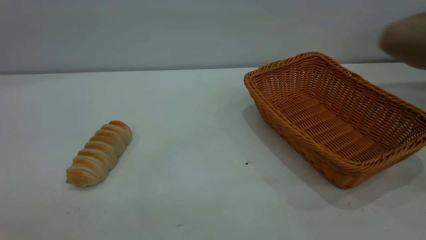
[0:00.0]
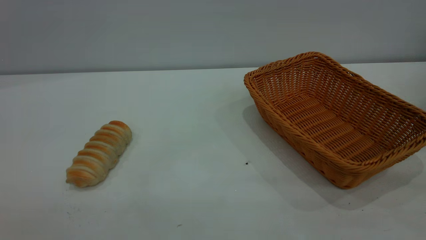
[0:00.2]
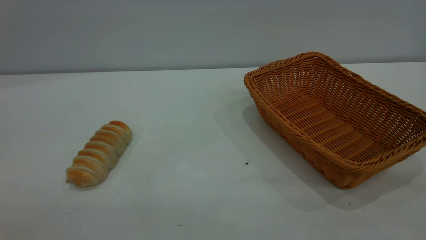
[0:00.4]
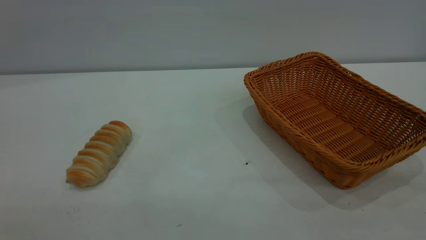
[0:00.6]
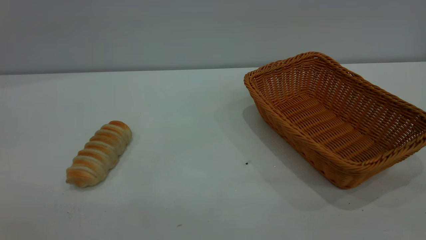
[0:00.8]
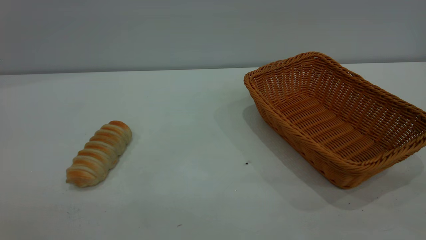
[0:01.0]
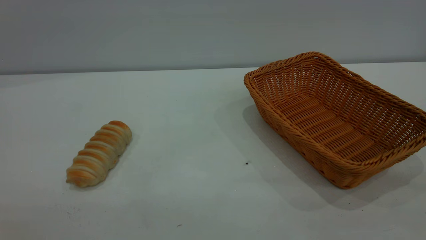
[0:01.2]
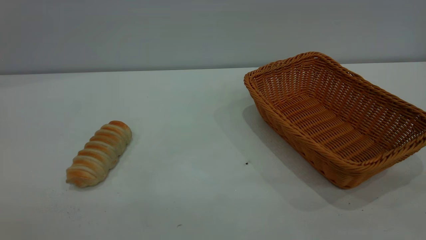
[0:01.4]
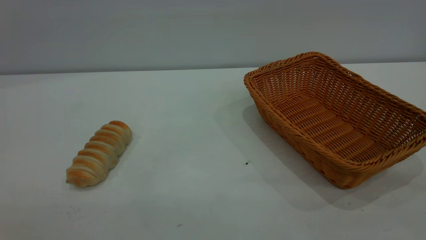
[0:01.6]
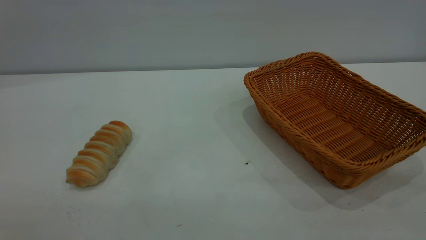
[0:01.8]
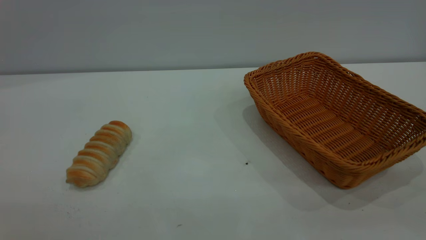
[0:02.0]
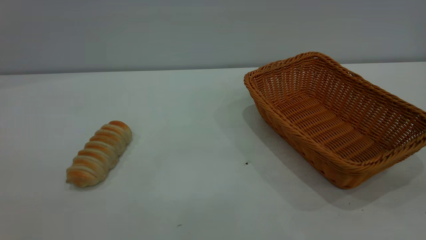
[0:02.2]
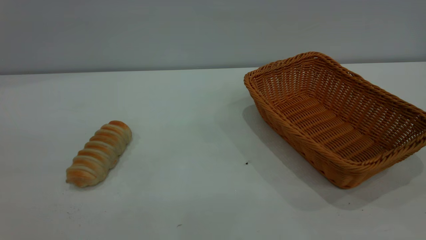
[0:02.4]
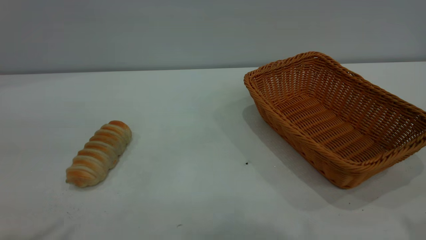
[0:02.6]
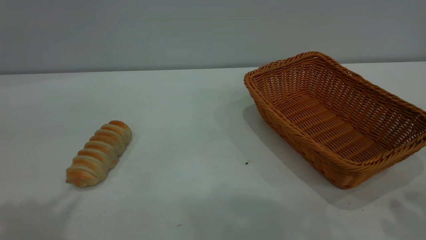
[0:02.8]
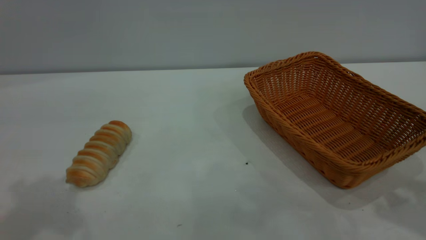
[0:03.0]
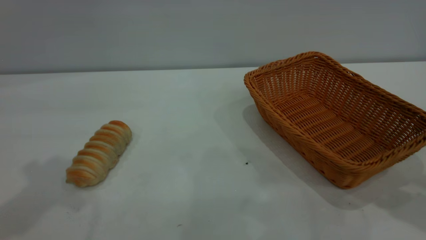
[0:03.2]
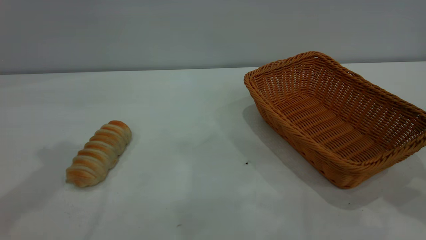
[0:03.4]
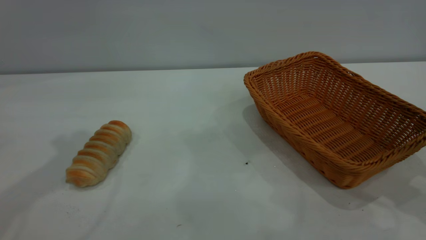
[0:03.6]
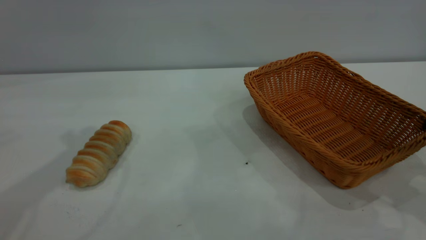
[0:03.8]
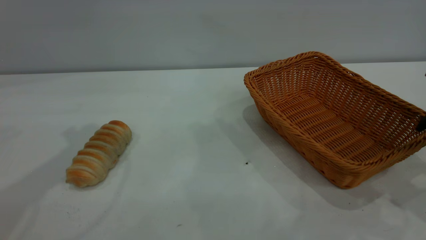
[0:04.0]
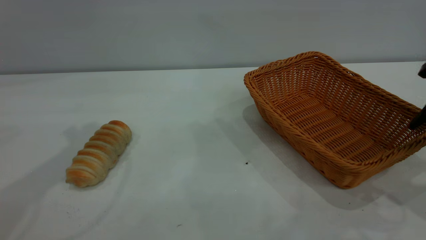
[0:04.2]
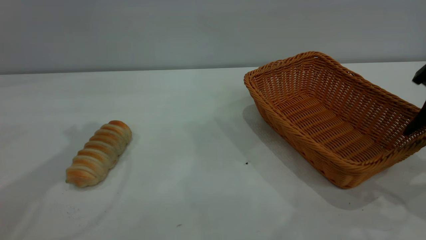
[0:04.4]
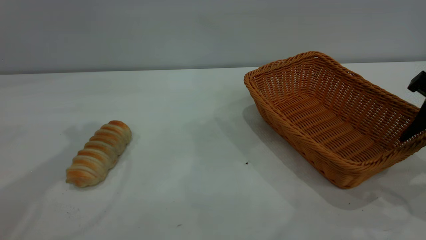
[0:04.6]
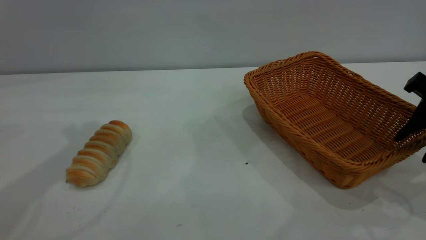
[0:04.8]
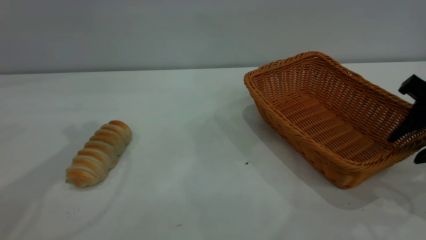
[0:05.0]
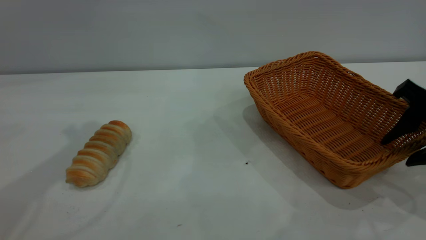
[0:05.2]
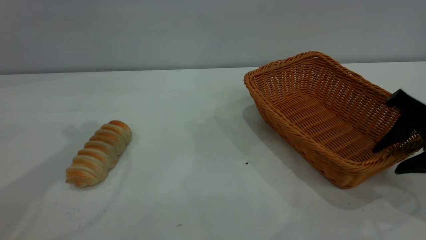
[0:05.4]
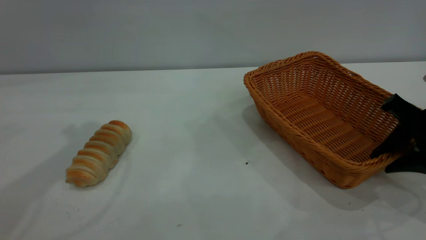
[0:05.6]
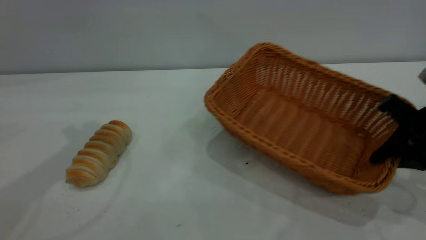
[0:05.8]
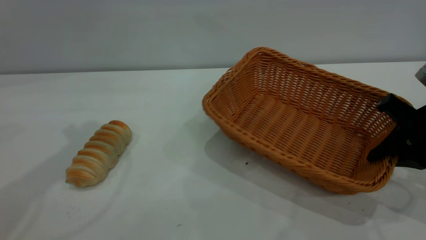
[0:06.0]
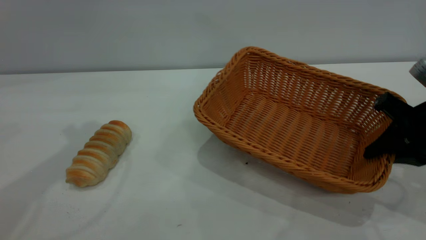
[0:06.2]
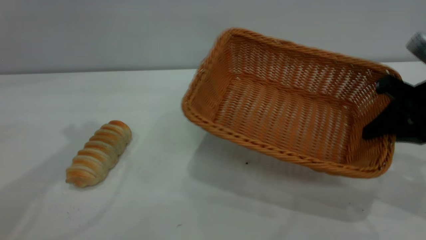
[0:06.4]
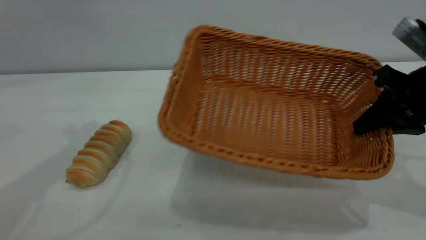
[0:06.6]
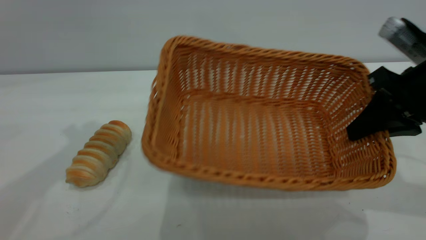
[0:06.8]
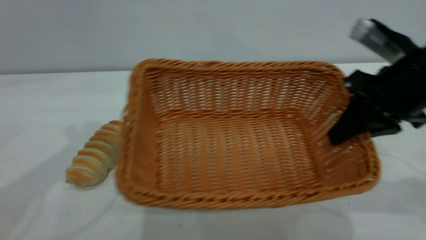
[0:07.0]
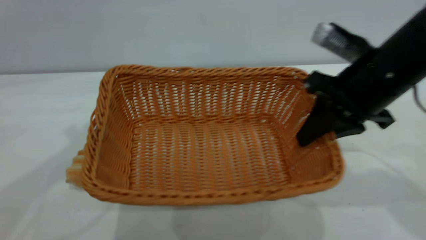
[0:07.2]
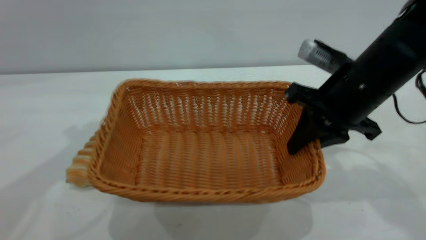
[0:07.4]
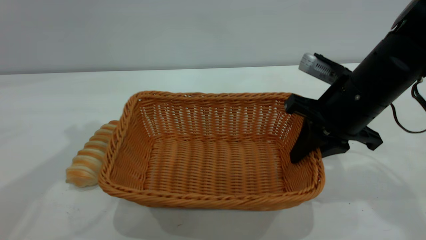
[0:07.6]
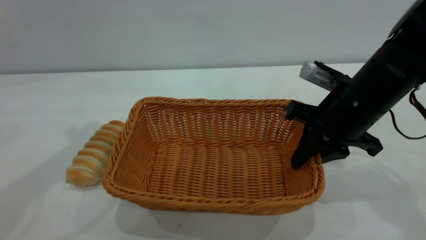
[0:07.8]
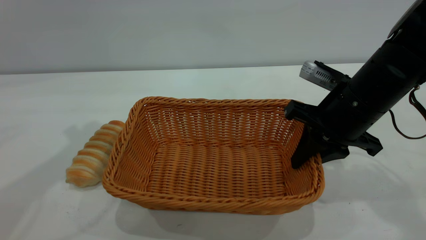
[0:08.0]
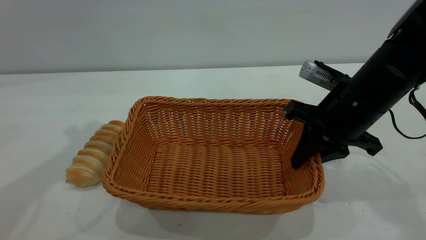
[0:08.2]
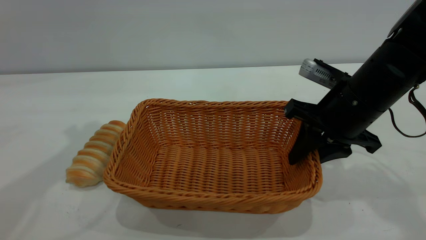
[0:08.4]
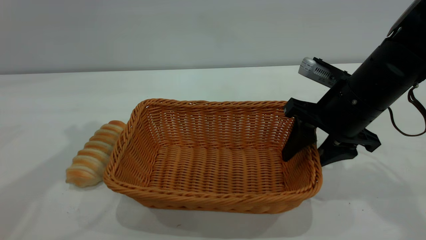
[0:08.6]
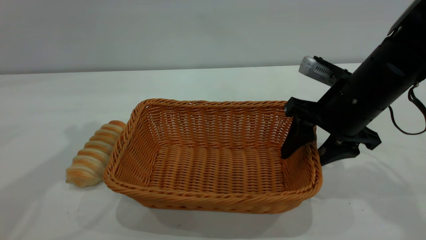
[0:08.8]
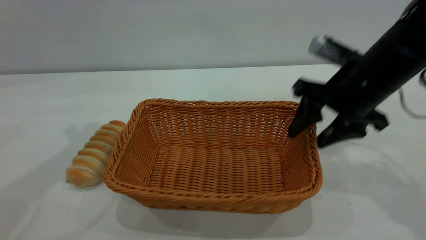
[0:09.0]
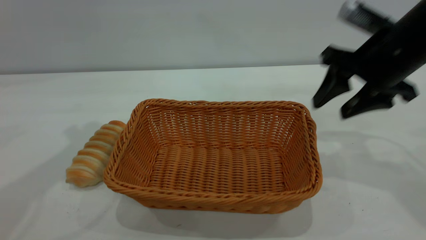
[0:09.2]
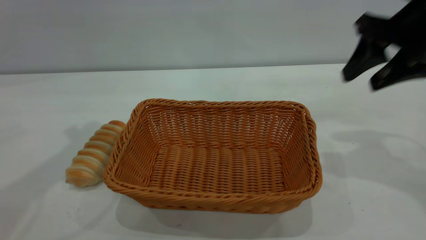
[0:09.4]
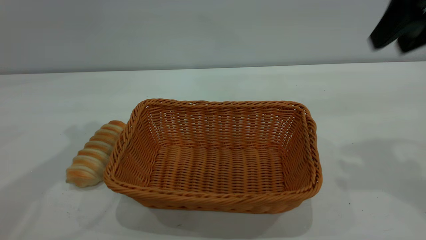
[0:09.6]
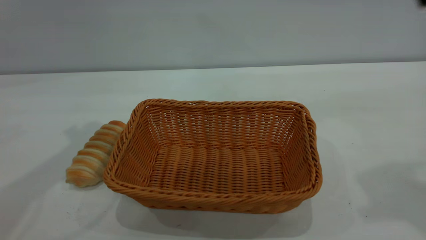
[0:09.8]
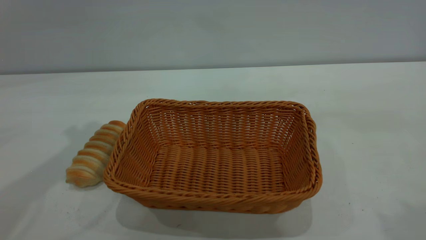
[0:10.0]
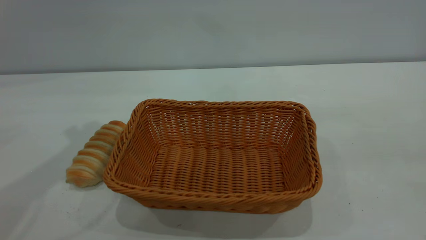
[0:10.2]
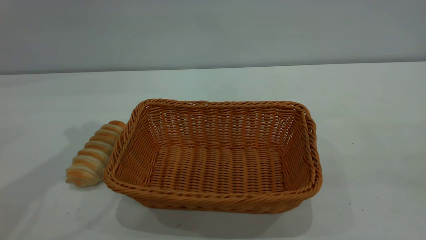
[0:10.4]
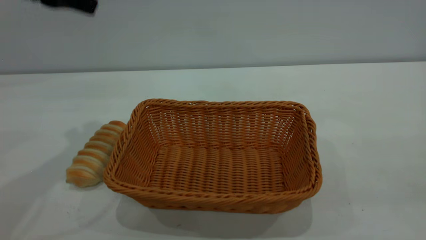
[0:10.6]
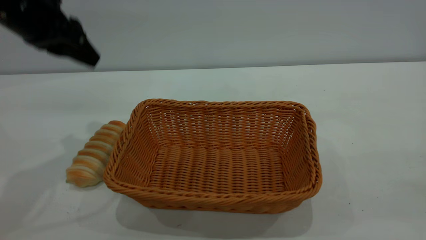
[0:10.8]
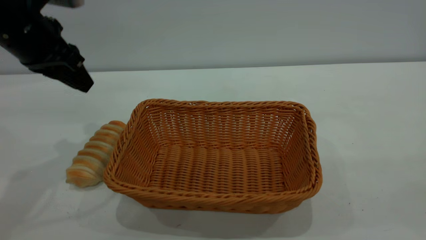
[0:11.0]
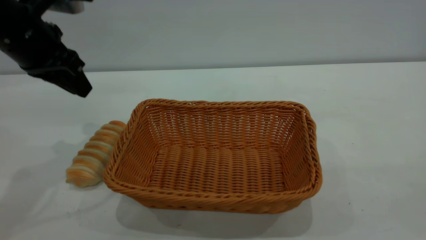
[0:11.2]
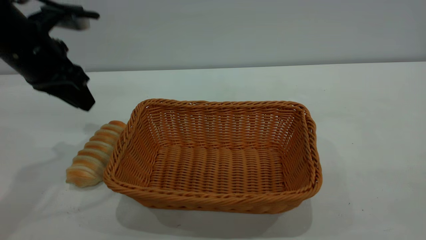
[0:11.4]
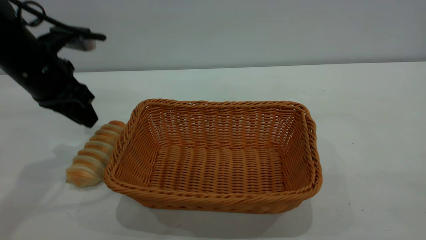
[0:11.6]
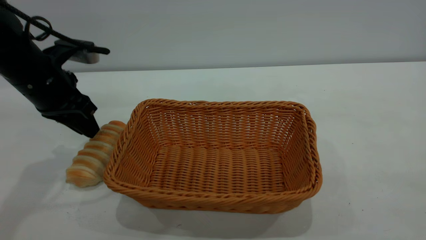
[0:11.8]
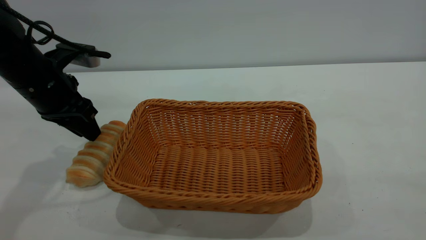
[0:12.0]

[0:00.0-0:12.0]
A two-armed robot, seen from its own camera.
Task of the whole recording: One hand grasps the yellow basket and places it in the middle of the table, while the other hand picks up the long bread and puts it into the yellow basket.
Step, 0:00.0 to 0:09.0: Move the basket to the center of view.
0:00.0 to 0:01.6: Neither gripper changes place.
0:03.0 to 0:04.4: The right gripper is displaced downward by some 10 cm.
0:04.4 to 0:06.0: The right gripper moves downward, roughly 5 cm, and closes up.
0:06.0 to 0:07.6: The right gripper travels to the left by roughly 10 cm.
0:07.6 to 0:09.0: The right gripper opens up.
0:09.0 to 0:10.4: The right gripper is displaced backward and upward by roughly 35 cm.
0:10.4 to 0:12.0: The left gripper travels downward by approximately 15 cm.

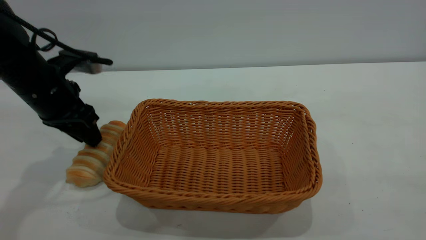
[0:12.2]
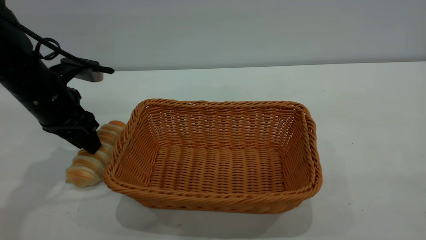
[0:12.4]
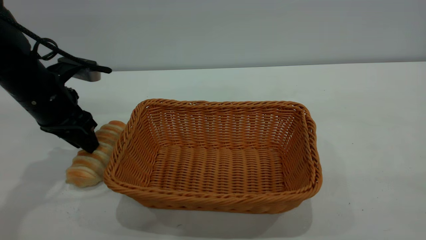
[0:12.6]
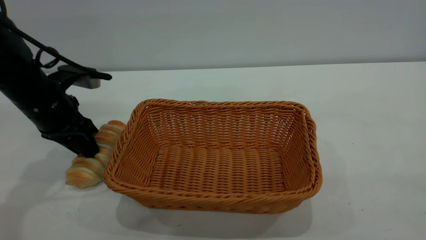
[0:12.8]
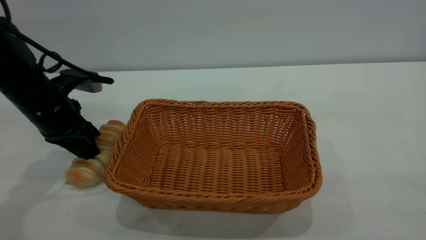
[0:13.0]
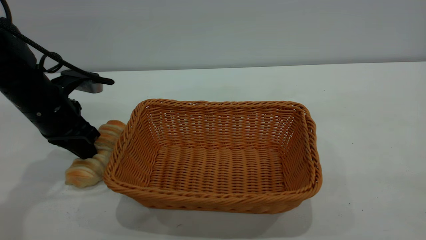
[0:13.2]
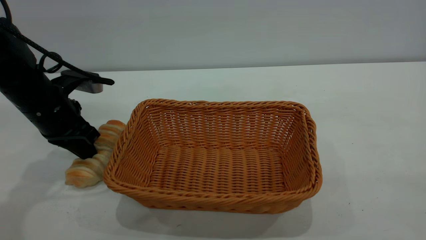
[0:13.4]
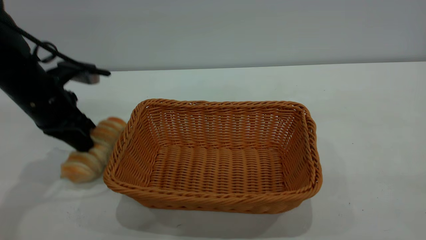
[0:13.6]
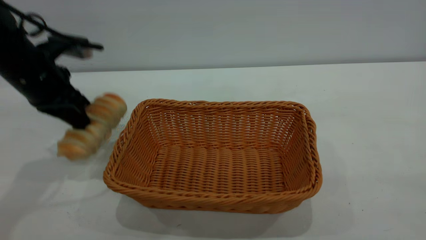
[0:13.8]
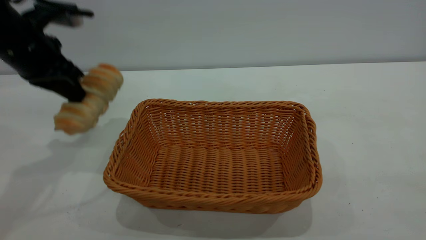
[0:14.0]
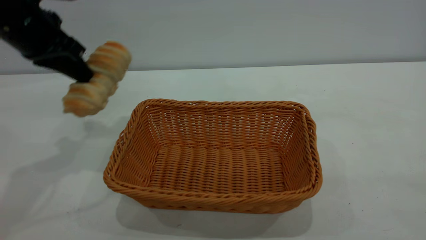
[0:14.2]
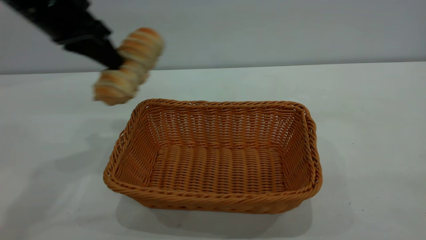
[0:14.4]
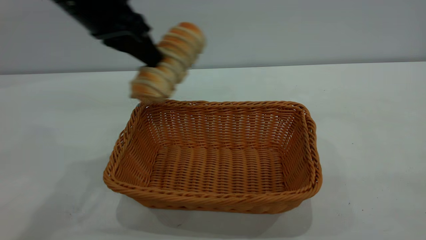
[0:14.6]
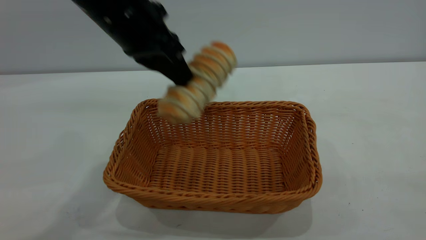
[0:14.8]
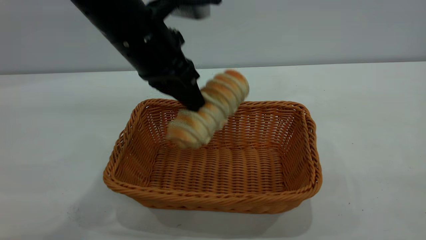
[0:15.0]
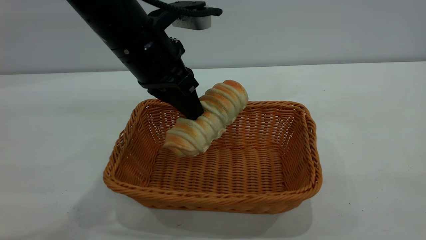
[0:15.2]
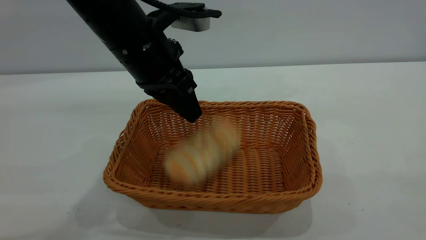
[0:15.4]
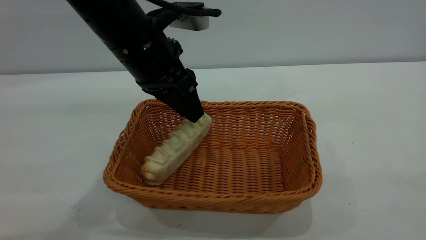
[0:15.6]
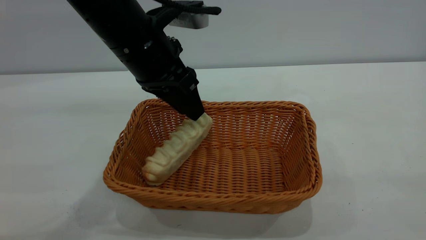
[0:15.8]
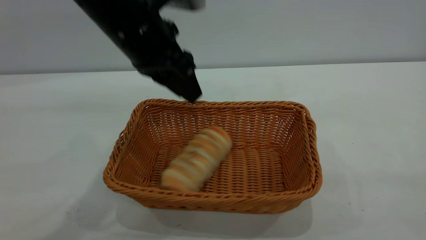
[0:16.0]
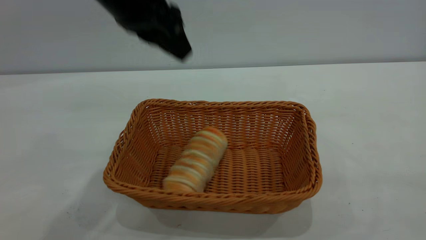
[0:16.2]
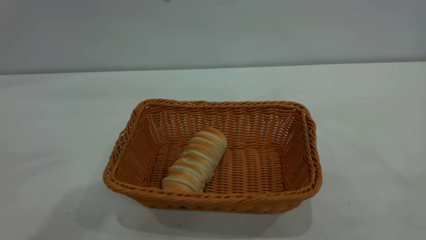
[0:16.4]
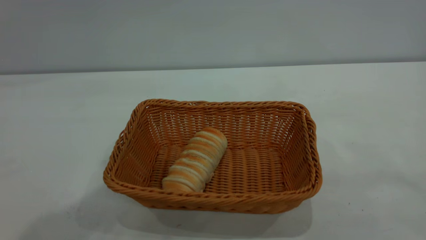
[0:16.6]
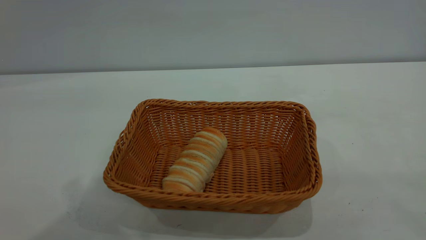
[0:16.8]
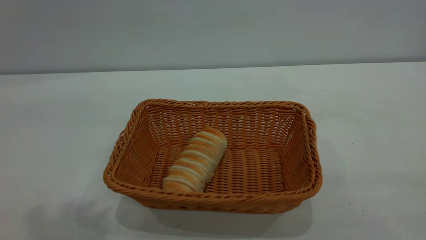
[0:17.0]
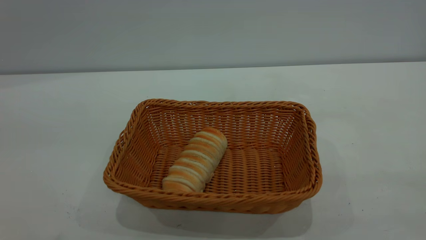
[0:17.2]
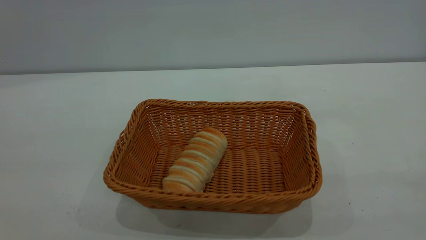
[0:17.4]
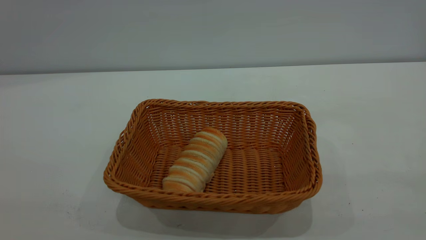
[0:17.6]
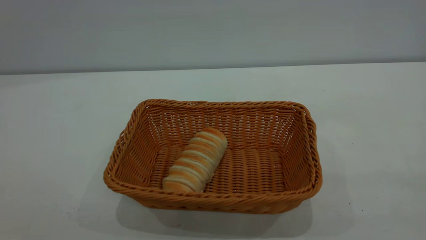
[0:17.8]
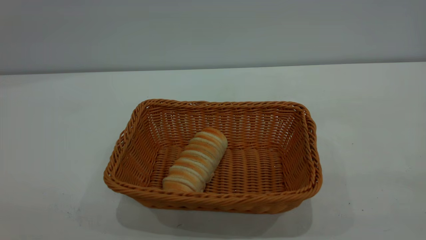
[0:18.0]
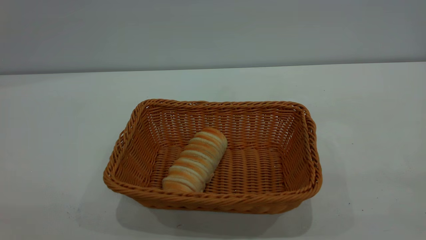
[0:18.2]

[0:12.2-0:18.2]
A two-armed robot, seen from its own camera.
Task of the whole recording: One hand grasps the yellow basket and places it in the middle of the table, while the other hand picks up the long bread and puts it into the yellow basket.
Step, 0:14.0 to 0:16.0: place the bread into the basket.
0:12.2 to 0:13.8: The left gripper closes up.
0:13.8 to 0:15.2: The left gripper travels to the right by roughly 15 cm.
0:15.2 to 0:16.6: The left gripper is displaced upward by approximately 20 cm, and opens.
